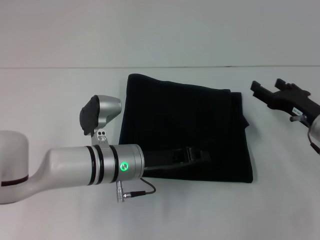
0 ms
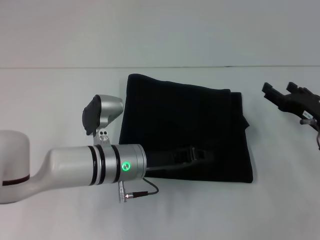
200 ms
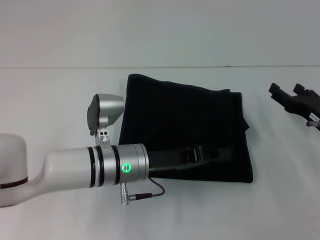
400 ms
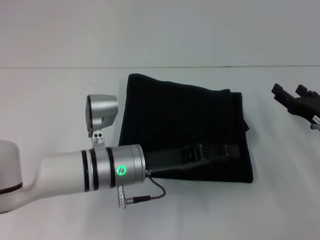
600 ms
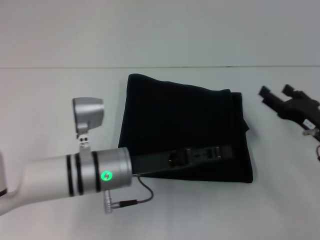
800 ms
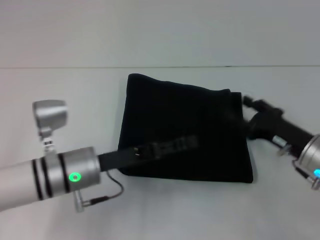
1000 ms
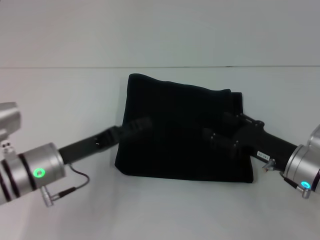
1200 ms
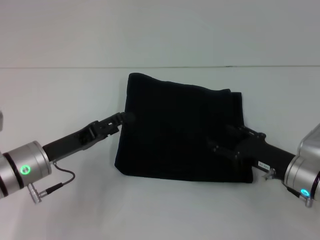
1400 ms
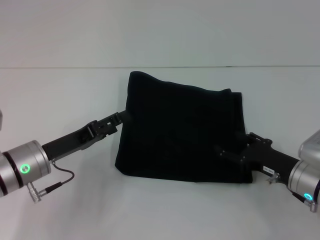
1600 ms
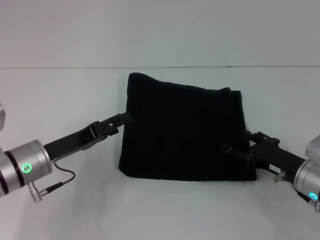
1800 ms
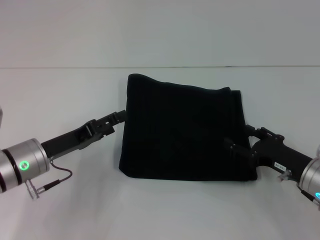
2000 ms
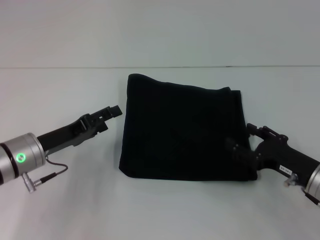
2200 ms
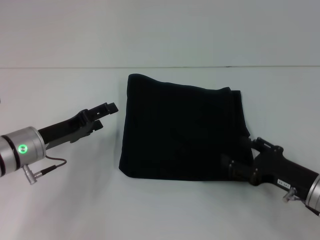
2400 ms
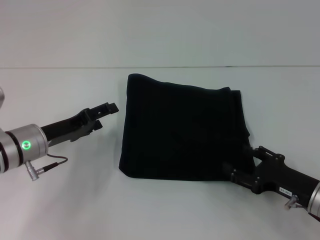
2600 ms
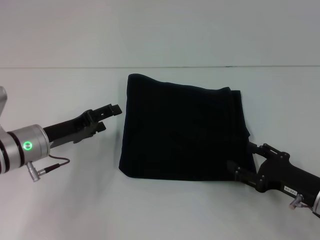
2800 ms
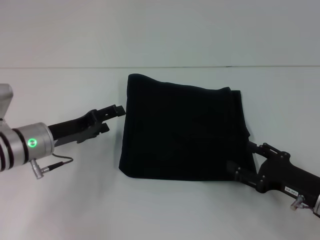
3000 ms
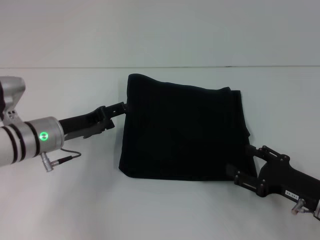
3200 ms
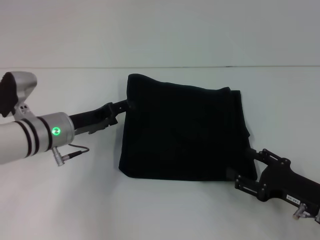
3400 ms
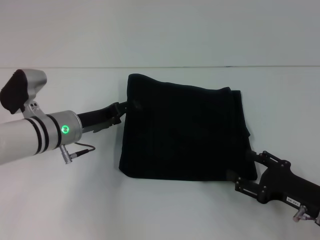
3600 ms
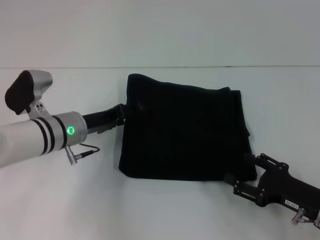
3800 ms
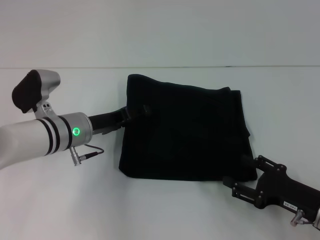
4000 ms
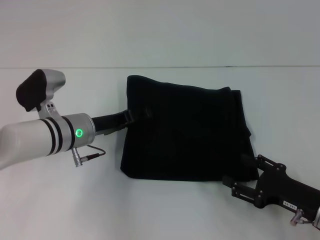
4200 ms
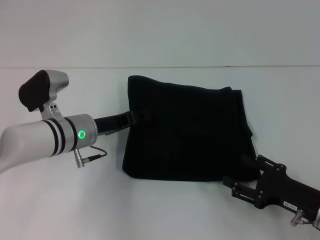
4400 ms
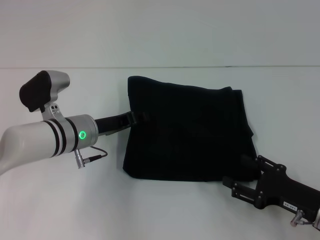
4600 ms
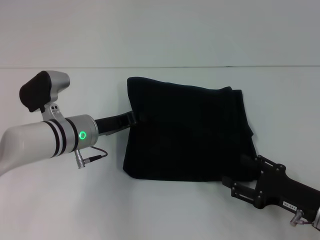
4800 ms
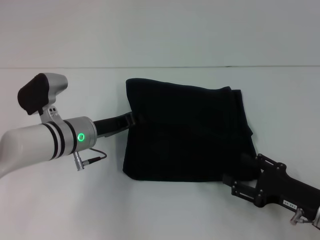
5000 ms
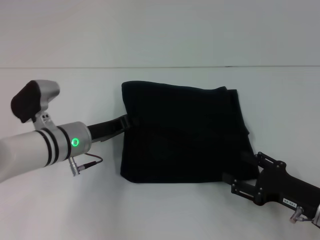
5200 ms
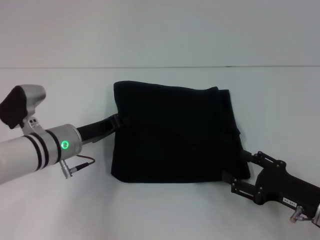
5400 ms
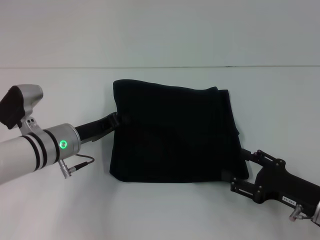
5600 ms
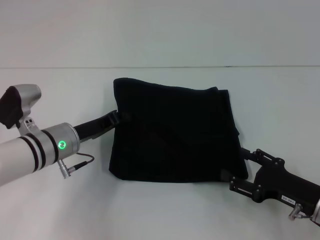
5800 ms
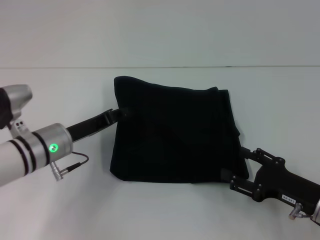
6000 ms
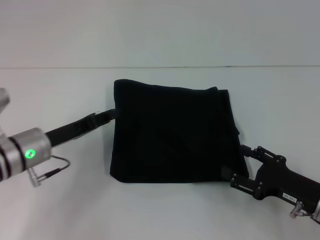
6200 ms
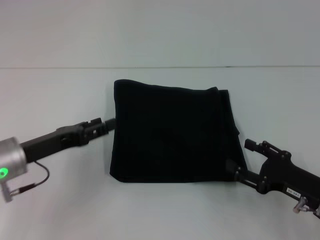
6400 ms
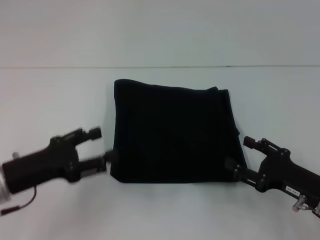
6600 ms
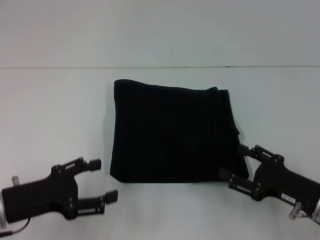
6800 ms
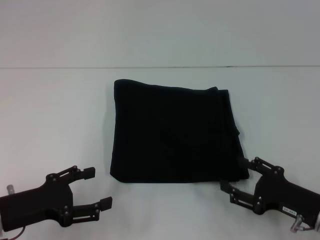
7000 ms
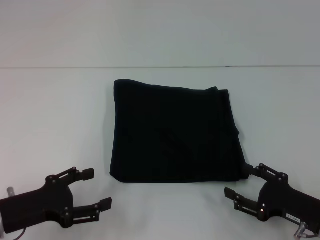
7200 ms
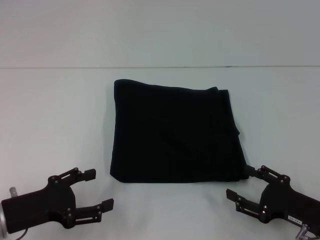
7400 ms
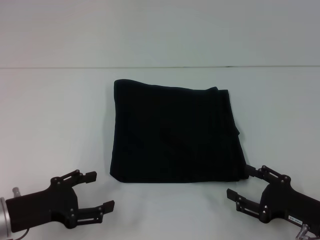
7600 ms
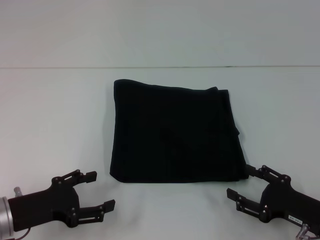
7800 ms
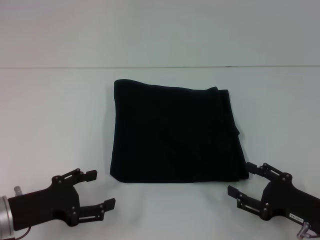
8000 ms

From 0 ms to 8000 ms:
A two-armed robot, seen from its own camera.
From 0 ms to 1600 ms: The right gripper shifts about 5 cm backward; the left gripper goes roughly 15 cm to the left, and opens its fingers.
From 1600 ms to 3200 ms: The left gripper goes approximately 5 cm forward. The right gripper changes place by roughly 5 cm.
From 3200 ms to 4800 ms: The left gripper travels to the right by approximately 5 cm, and closes.
From 4800 ms to 6400 ms: The left gripper travels to the left and backward by roughly 10 cm.
From 6400 ms to 8000 ms: The left gripper travels backward by some 5 cm, and opens its fingers.

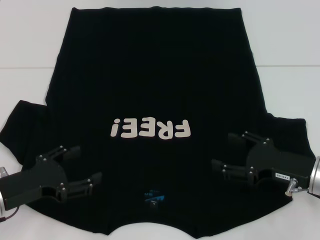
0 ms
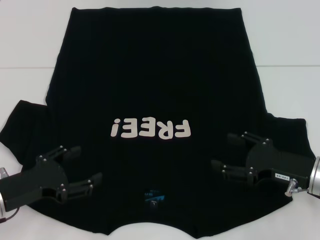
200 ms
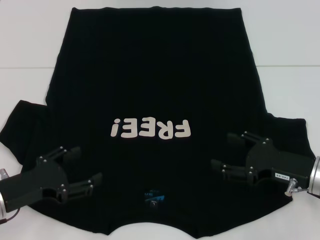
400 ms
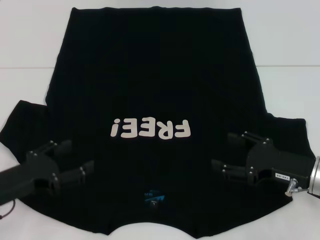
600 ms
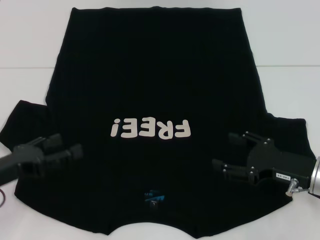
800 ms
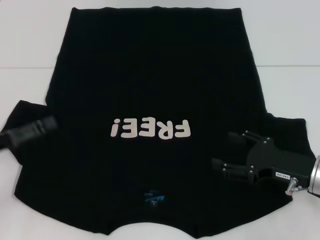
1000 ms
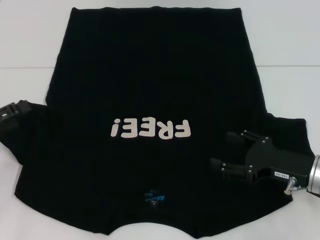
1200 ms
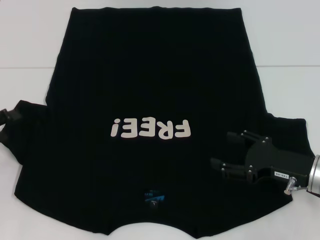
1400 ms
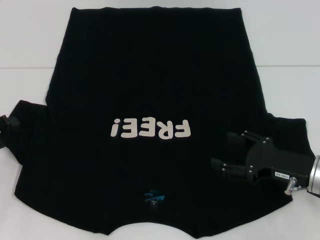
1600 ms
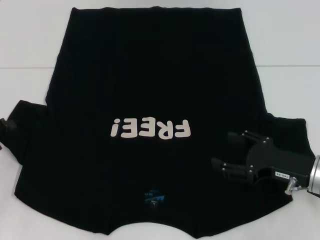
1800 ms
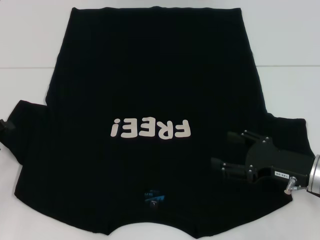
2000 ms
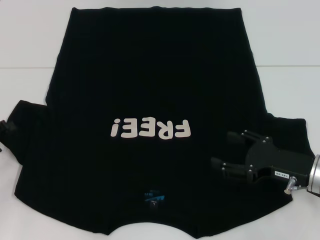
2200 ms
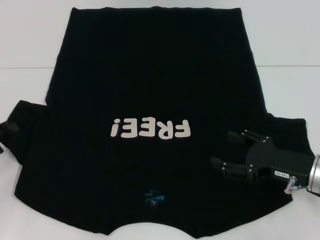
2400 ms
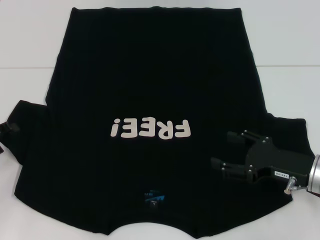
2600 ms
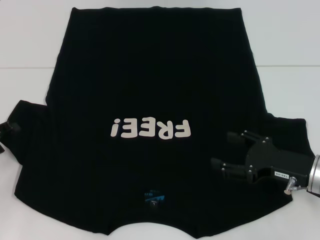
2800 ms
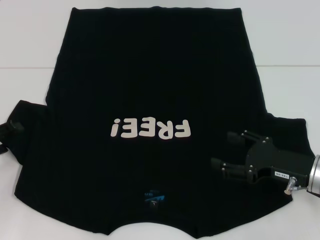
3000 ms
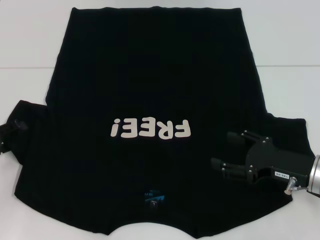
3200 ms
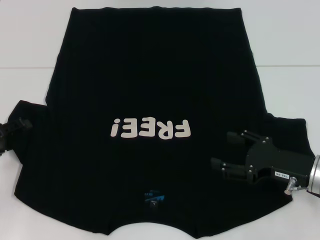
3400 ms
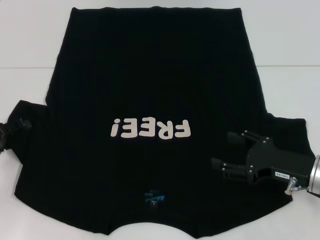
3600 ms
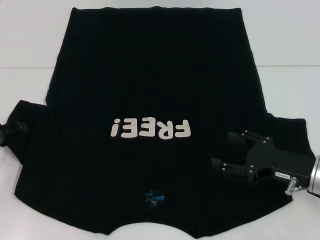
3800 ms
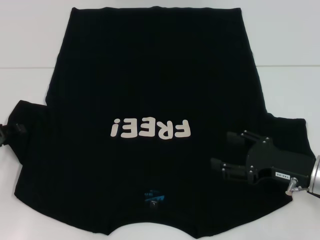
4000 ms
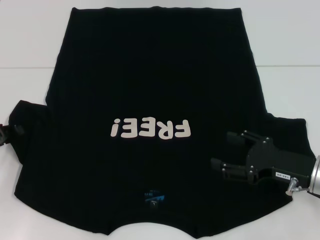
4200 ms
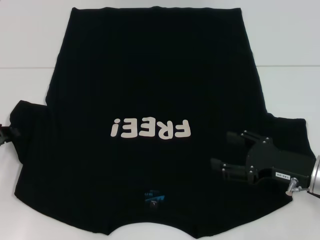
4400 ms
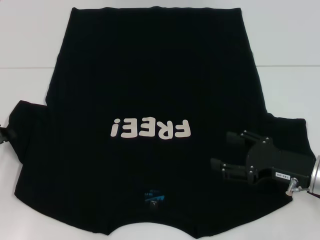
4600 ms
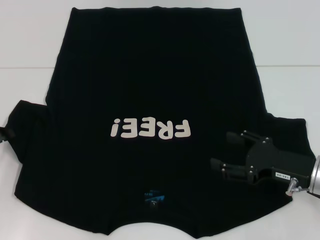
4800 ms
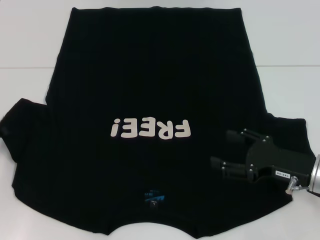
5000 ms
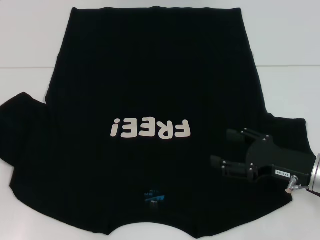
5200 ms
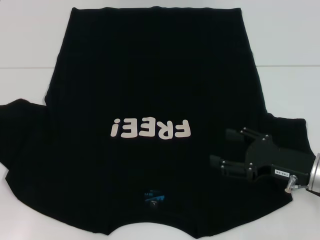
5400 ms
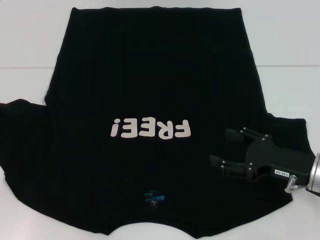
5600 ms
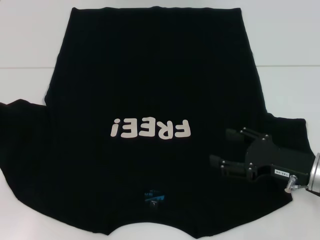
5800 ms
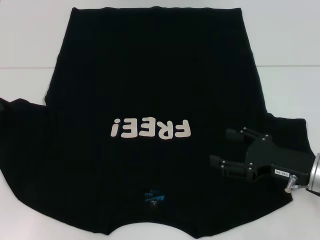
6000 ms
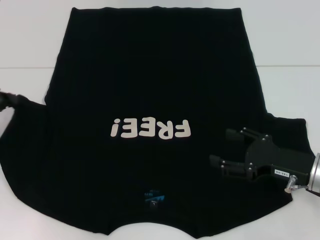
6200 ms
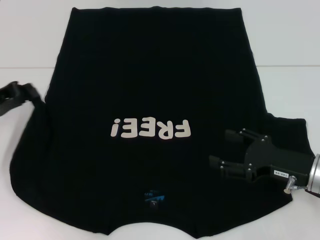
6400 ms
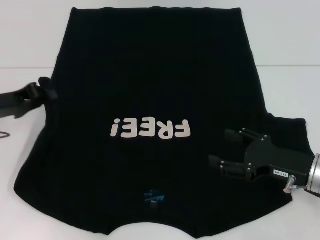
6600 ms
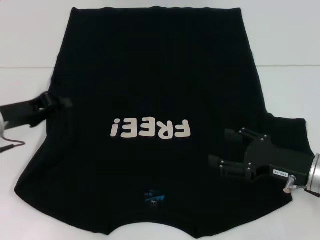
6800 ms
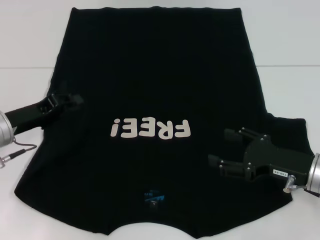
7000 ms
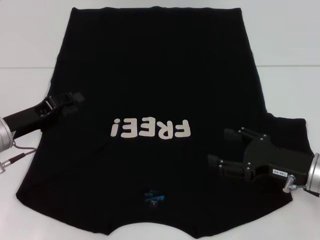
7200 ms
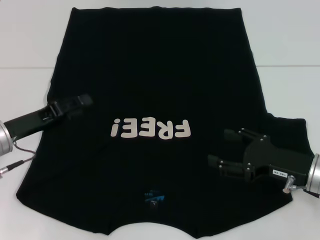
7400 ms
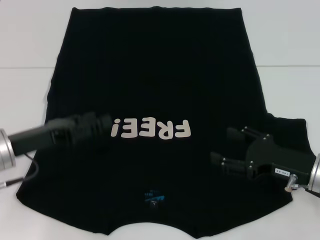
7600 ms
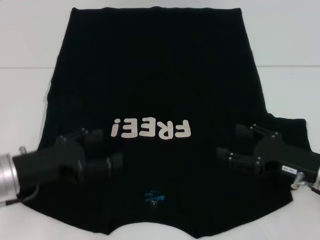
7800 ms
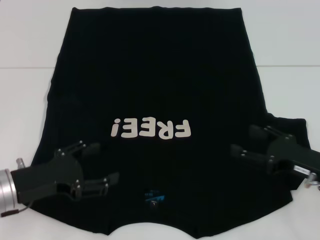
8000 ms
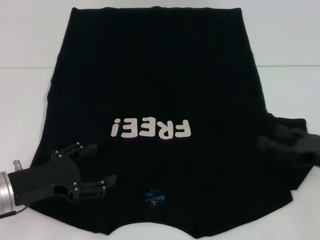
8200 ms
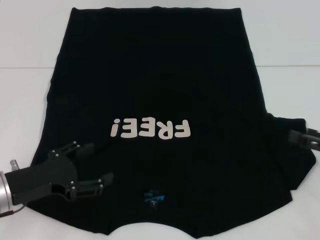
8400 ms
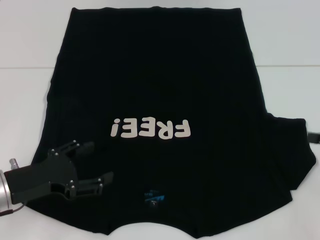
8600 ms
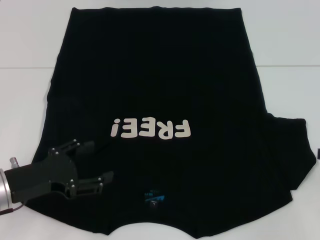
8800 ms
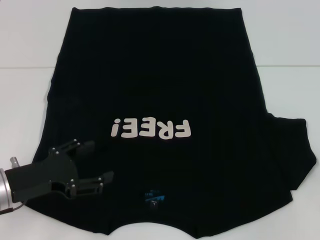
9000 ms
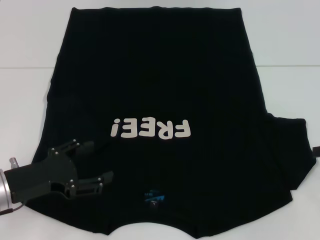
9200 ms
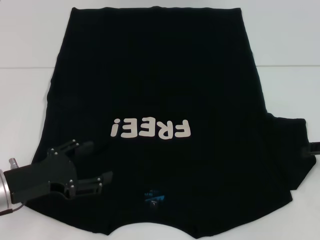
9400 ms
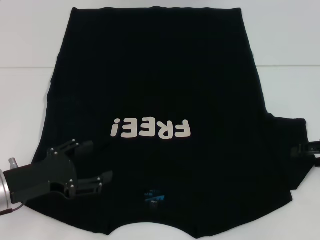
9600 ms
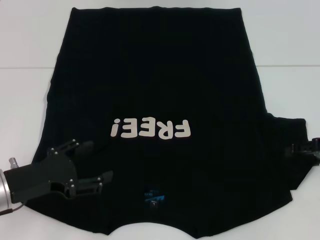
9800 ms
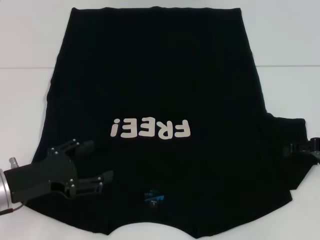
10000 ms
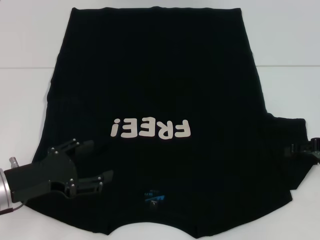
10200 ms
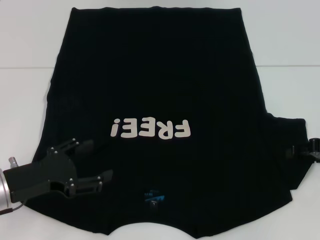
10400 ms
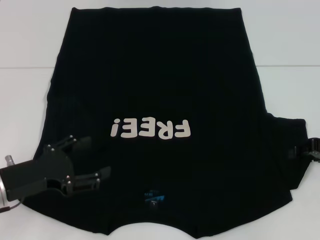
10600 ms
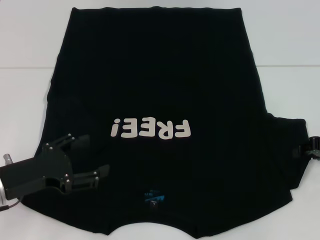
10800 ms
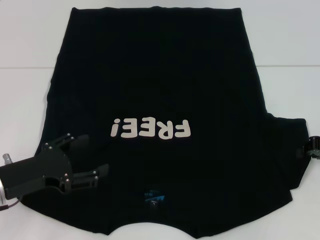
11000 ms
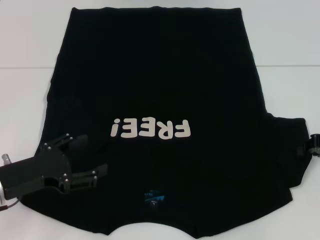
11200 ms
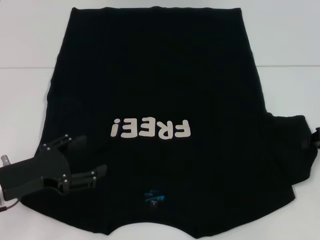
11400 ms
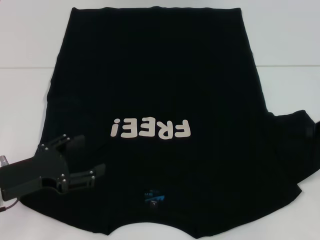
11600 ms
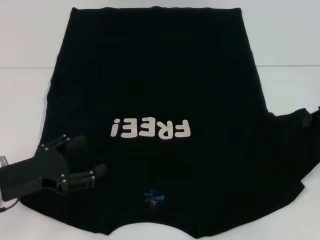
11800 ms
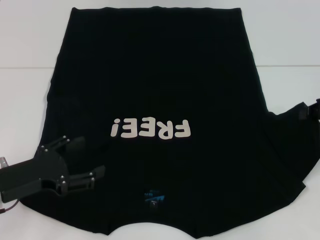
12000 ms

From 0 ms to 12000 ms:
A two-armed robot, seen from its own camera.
Step, from 0 ms to 7600 ms: Fold the bottom left sleeve with your left hand.
From 0 ms to 1600 ms: The left gripper goes approximately 10 cm to the left.
From 4400 ms to 6000 ms: The left gripper closes its fingers.
From 6000 ms to 7600 ms: The left gripper is displaced to the right by some 10 cm, and opens its fingers.
From 7600 ms to 9000 ms: The left gripper changes place by roughly 5 cm. The right gripper travels to the right and upward by approximately 15 cm.
From 9000 ms to 10400 ms: The right gripper changes place by about 5 cm.
From 10400 ms to 12000 ms: The right gripper travels upward by roughly 5 cm, and closes.

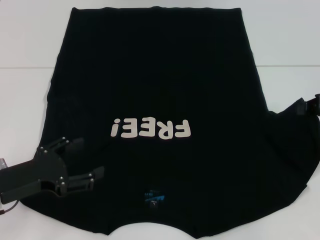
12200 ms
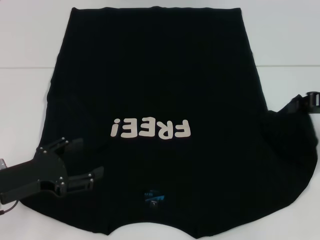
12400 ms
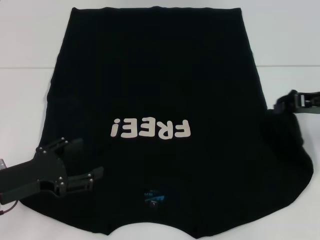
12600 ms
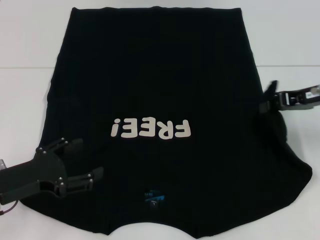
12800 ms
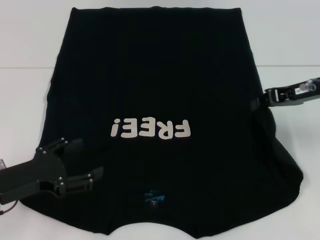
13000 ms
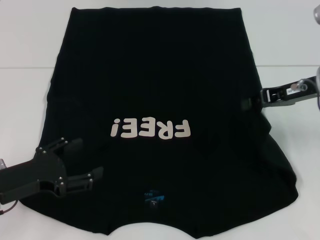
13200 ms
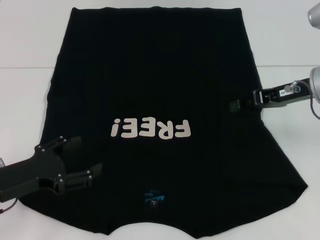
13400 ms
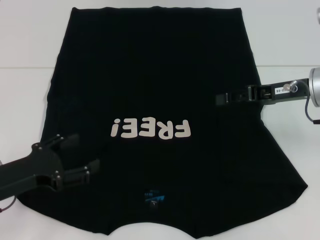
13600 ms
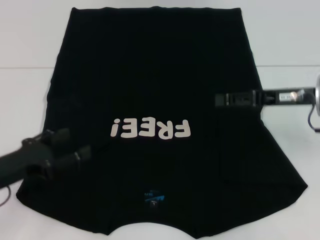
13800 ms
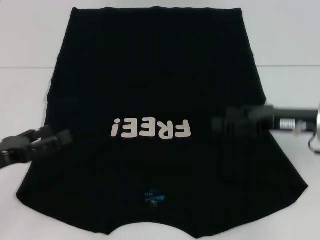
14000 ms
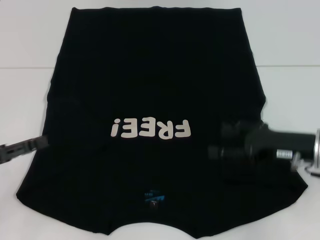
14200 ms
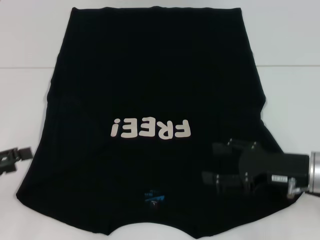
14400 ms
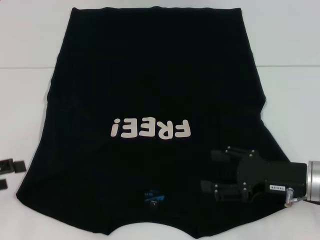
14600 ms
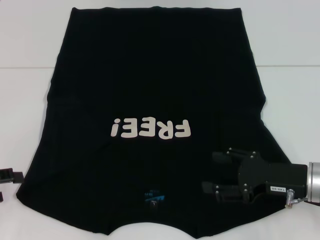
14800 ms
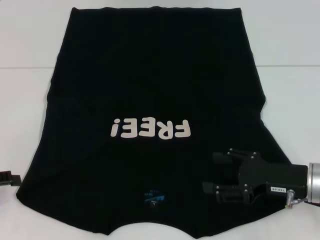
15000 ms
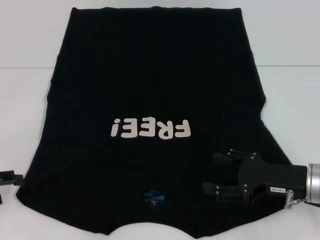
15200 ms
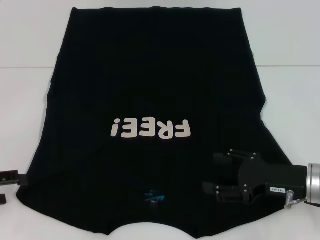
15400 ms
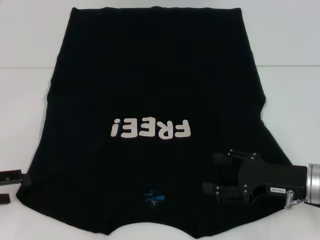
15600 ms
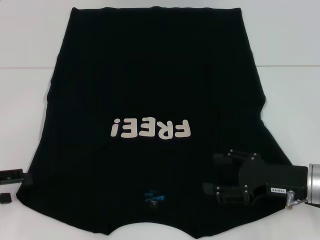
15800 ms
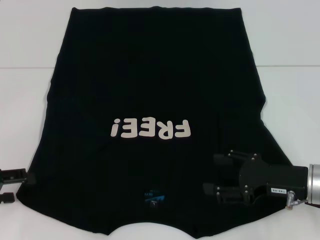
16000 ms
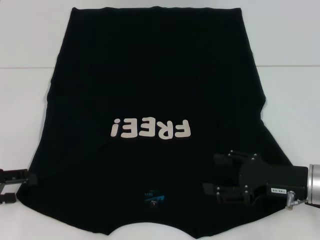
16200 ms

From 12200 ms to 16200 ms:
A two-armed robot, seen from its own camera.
From 12200 ms to 13600 ms: The right gripper travels to the left by roughly 10 cm.
From 13600 ms to 14800 ms: The right gripper is displaced backward and downward by roughly 15 cm, and opens up. The left gripper moves to the left, some 10 cm.
From 14800 ms to 16200 ms: The grippers move only a little.
